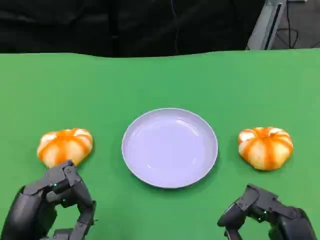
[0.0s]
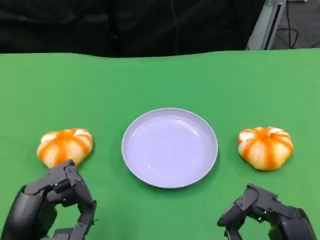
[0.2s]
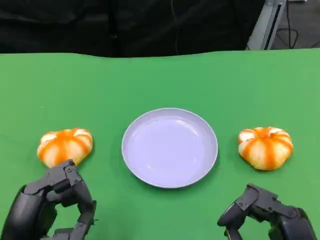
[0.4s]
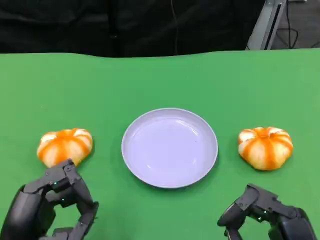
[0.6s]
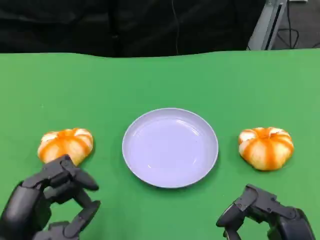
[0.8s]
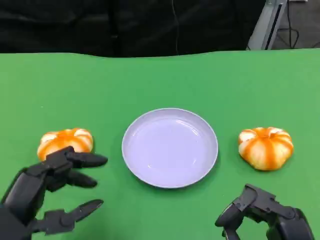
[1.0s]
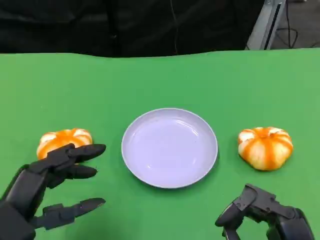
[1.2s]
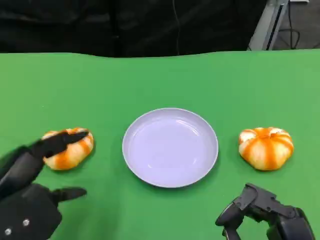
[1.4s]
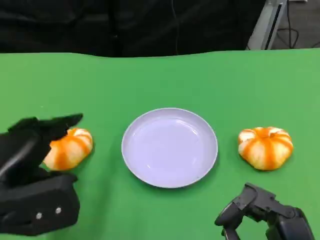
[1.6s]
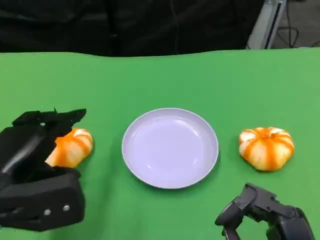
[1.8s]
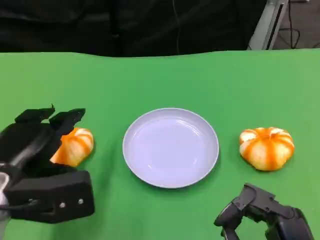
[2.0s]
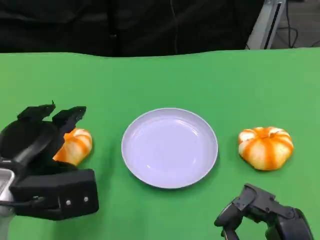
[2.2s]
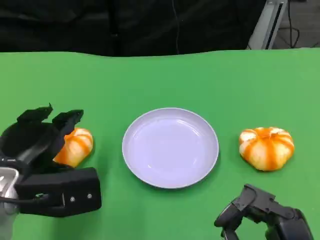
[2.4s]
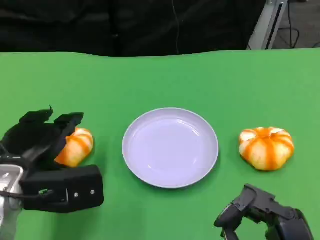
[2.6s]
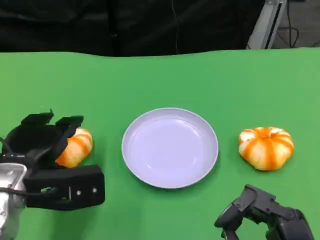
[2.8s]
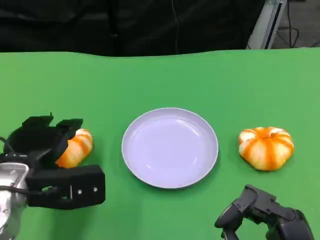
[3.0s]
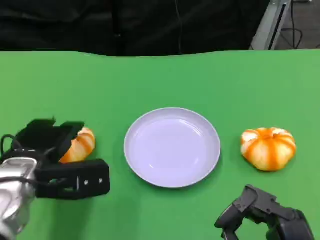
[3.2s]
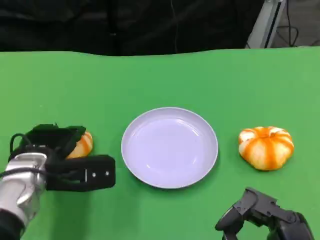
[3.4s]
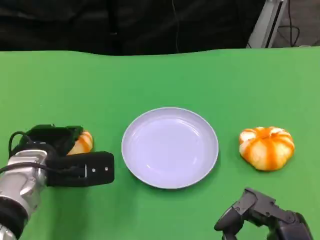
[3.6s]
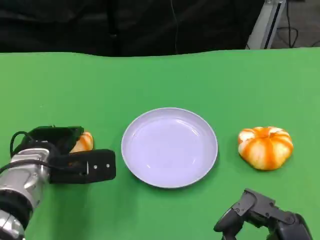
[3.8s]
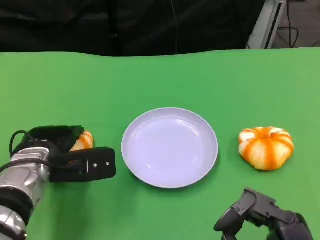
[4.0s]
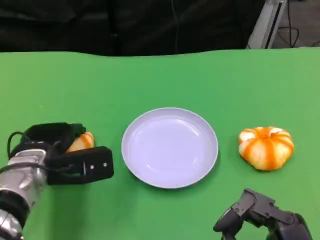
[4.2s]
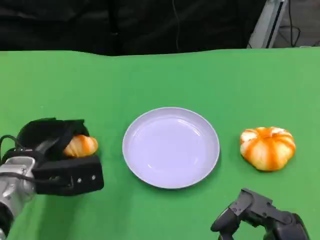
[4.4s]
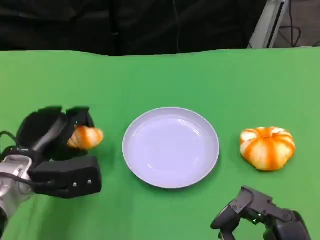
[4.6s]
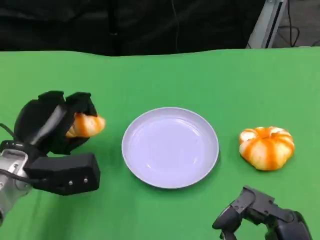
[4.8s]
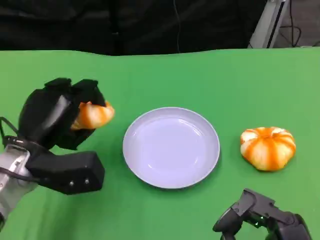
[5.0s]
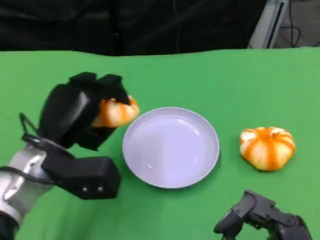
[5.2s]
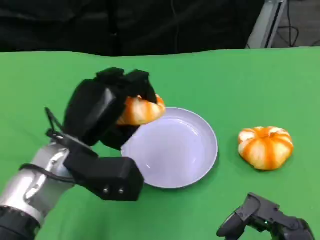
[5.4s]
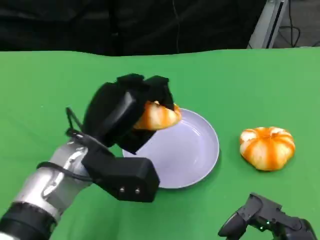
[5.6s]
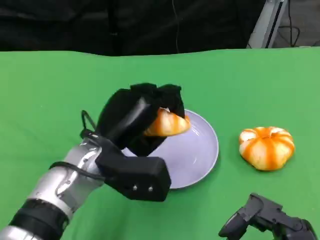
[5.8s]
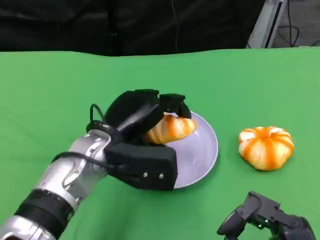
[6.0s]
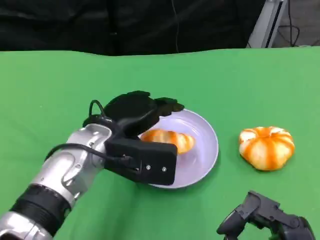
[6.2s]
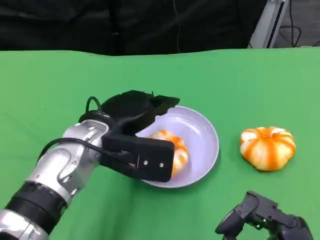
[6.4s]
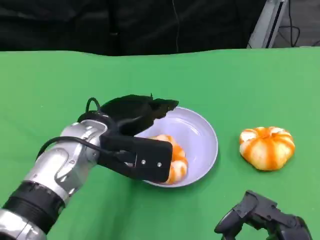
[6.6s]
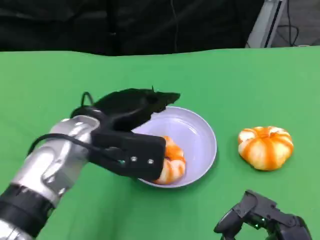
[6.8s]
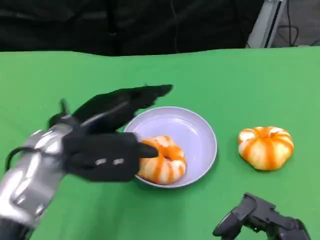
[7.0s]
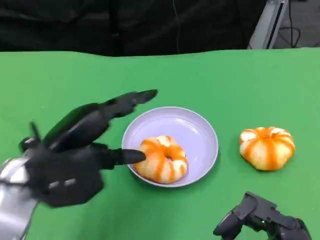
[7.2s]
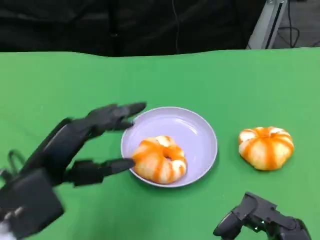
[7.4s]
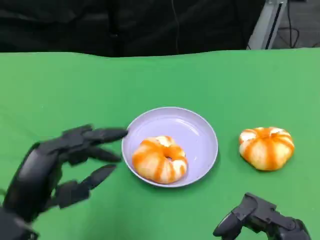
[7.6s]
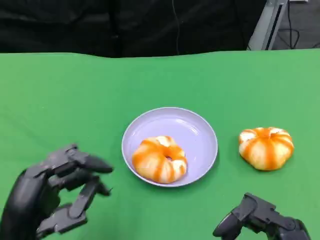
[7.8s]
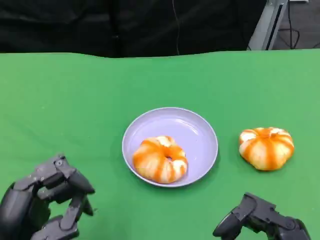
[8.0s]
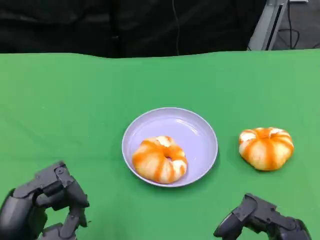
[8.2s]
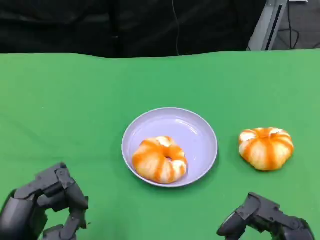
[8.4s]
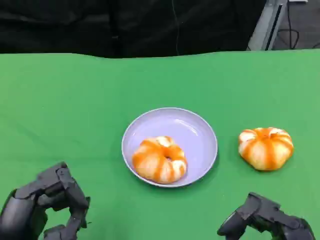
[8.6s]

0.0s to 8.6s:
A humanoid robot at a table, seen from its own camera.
Task of the whole recording: Grasp the bread from the table and place it into the plate.
0.0s to 1.4s: The left hand moves upward, roughly 5 cm.
1.4s to 2.8s: The left hand shifts about 5 cm forward.
2.8s to 4.4s: The left hand changes place by about 5 cm.
4.4s to 5.8s: The left hand shifts roughly 10 cm to the right and upward.
5.8s to 7.2s: The left hand travels to the left and backward by approximately 10 cm.
7.2s to 8.6s: The left hand moves backward and downward, about 10 cm.

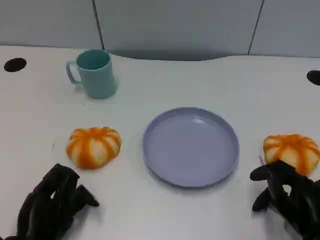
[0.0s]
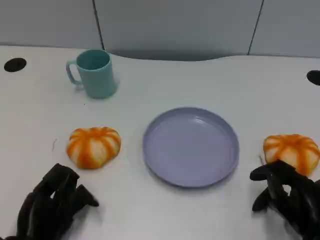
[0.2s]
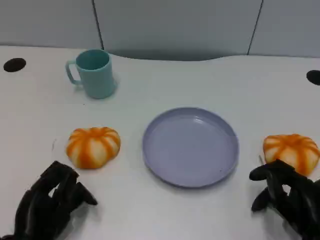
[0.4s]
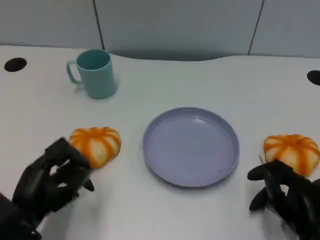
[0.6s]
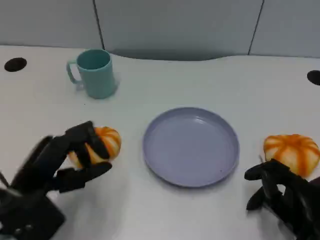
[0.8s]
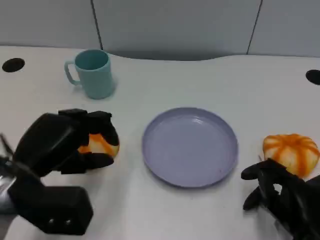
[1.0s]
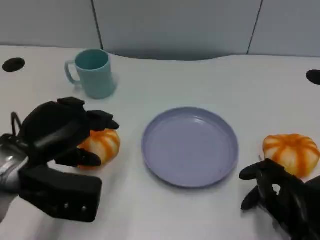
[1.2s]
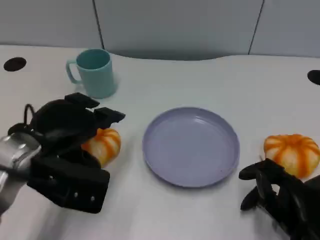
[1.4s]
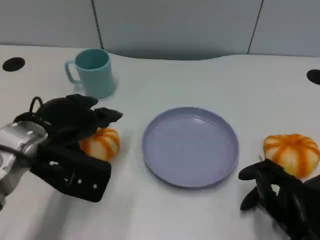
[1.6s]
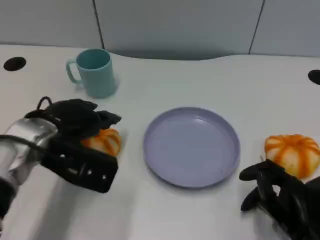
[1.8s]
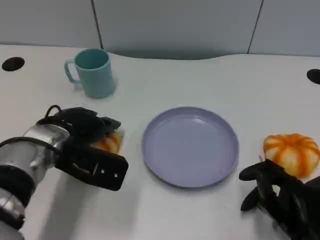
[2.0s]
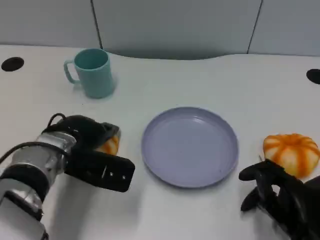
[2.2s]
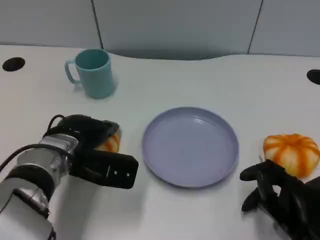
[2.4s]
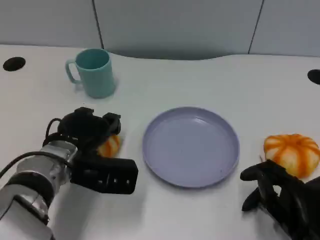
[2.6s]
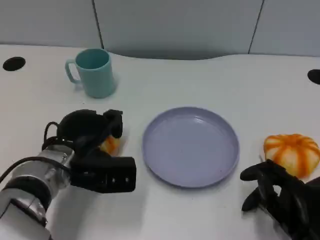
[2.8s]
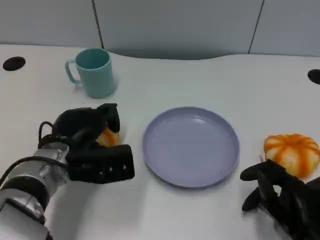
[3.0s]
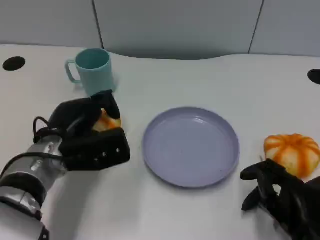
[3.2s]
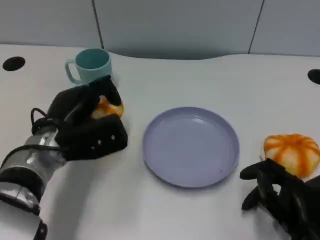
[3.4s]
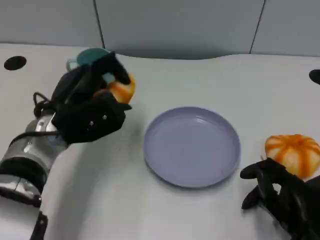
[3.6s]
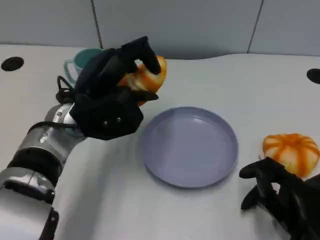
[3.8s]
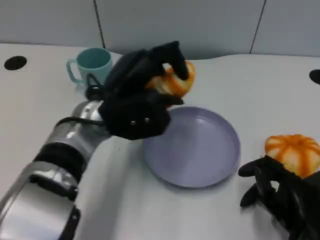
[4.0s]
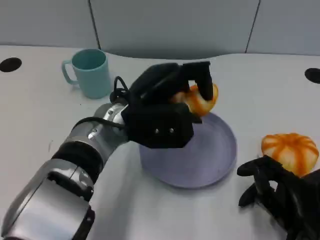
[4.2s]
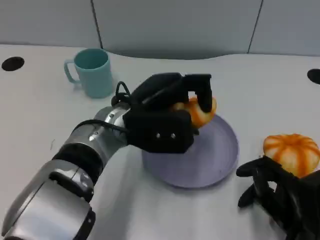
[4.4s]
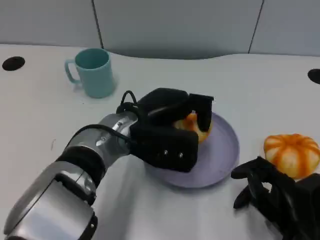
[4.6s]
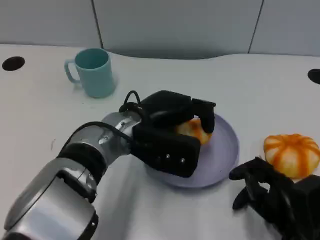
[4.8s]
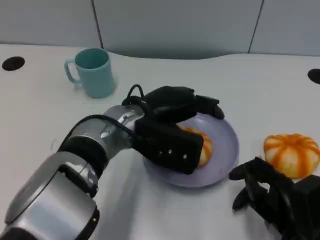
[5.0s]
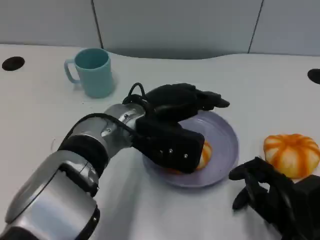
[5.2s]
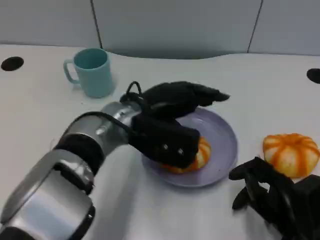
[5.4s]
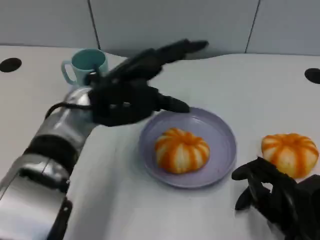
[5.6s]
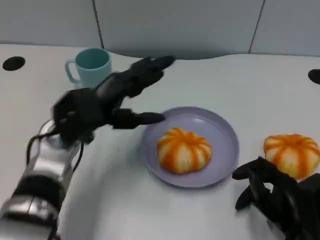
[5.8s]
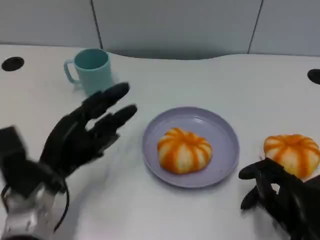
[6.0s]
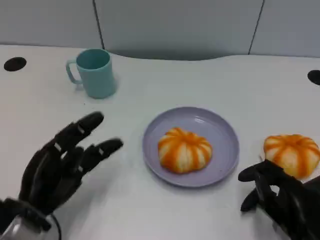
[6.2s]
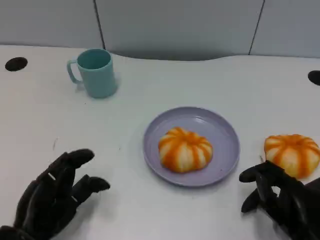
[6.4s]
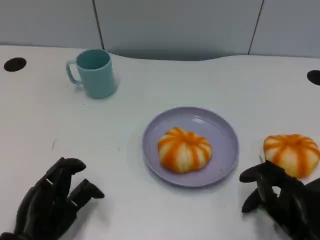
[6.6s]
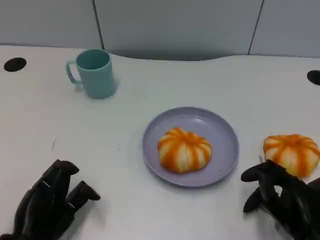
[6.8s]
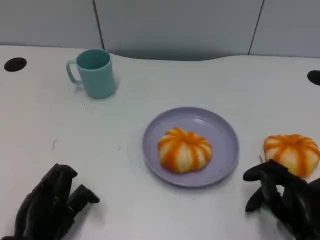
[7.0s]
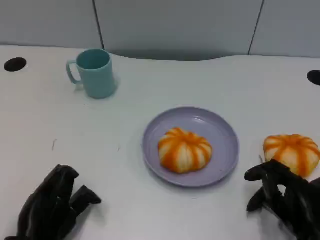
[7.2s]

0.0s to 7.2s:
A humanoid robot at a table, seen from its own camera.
Task of the whole recording: Grasp the bread from the table and place it into the plate.
0.0s to 1.4s: The left hand goes some 15 cm upward and forward.
1.4s to 2.8s: The left hand travels downward by approximately 5 cm.
2.8s to 4.4s: The left hand goes approximately 10 cm to the right and upward.
4.4s to 5.8s: The left hand moves to the left, roughly 10 cm.
5.8s to 7.2s: The left hand shifts approximately 15 cm backward, downward and to the left.

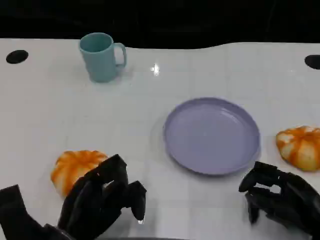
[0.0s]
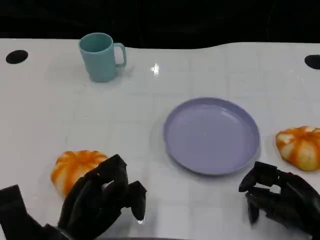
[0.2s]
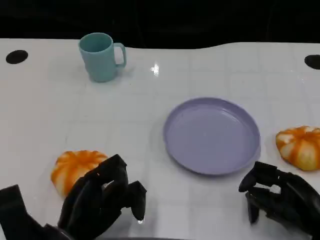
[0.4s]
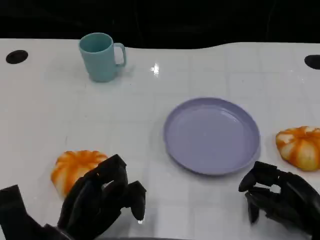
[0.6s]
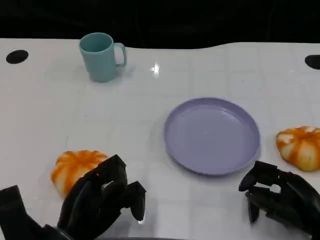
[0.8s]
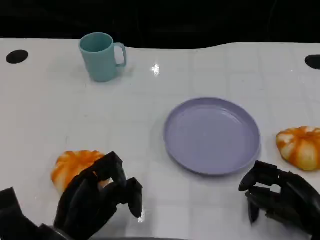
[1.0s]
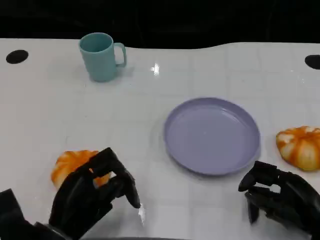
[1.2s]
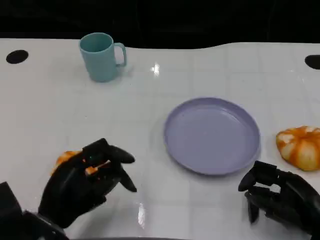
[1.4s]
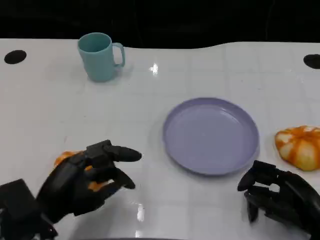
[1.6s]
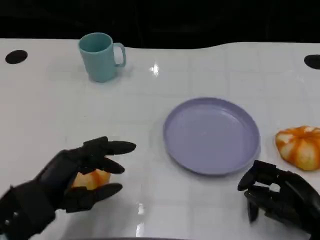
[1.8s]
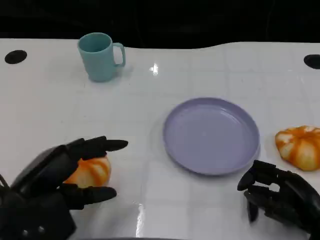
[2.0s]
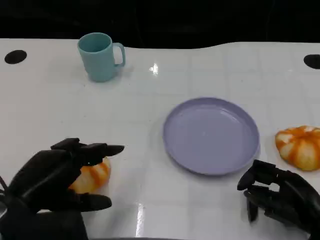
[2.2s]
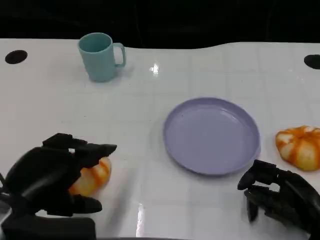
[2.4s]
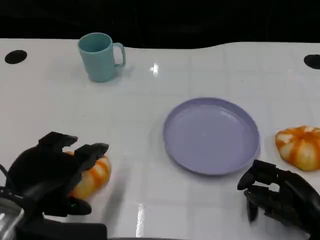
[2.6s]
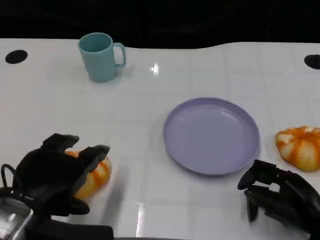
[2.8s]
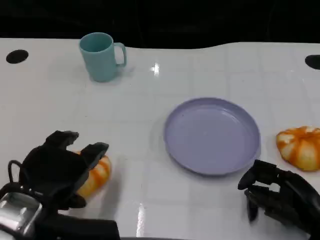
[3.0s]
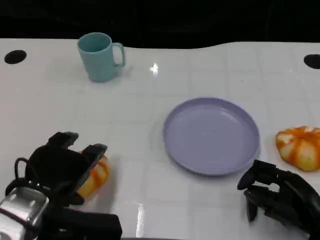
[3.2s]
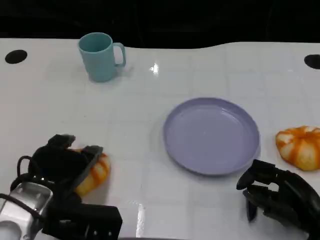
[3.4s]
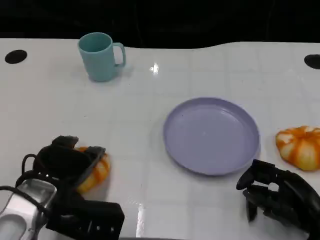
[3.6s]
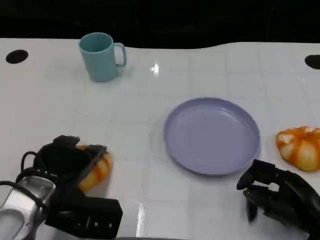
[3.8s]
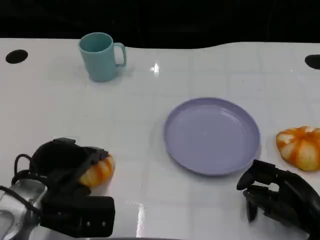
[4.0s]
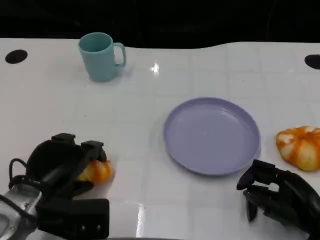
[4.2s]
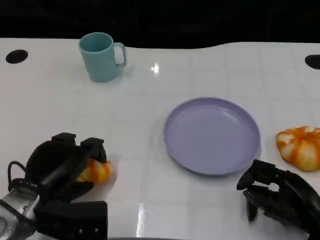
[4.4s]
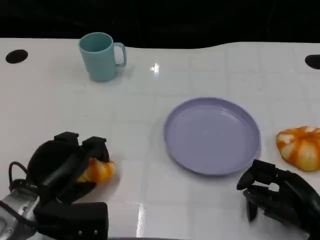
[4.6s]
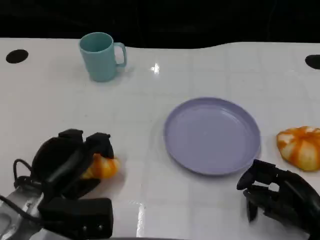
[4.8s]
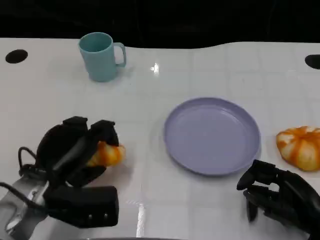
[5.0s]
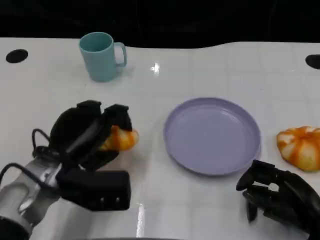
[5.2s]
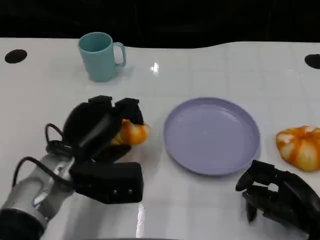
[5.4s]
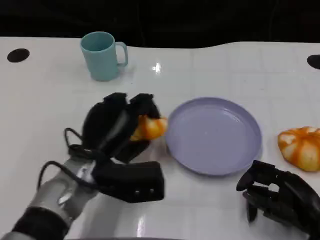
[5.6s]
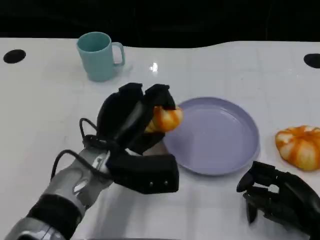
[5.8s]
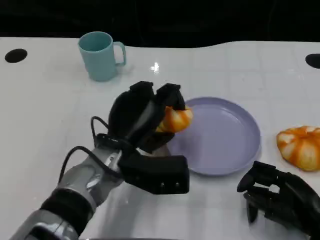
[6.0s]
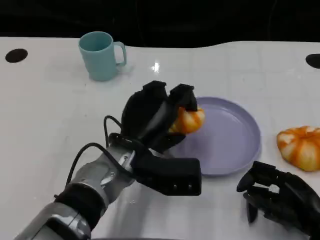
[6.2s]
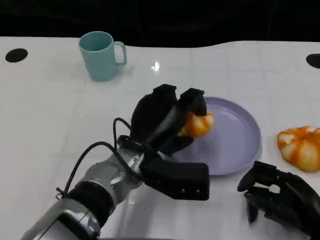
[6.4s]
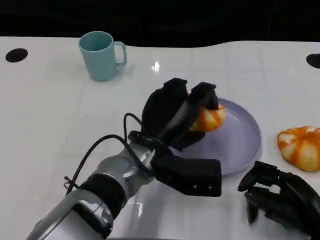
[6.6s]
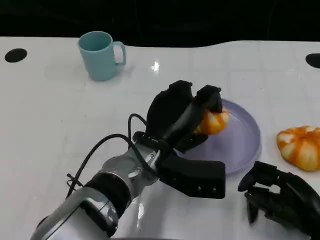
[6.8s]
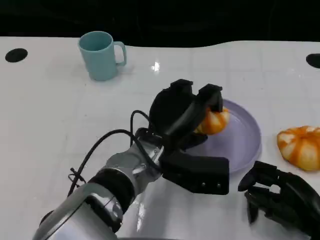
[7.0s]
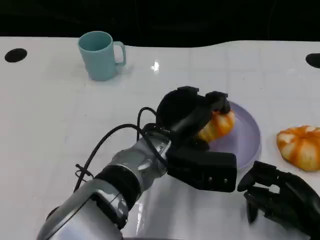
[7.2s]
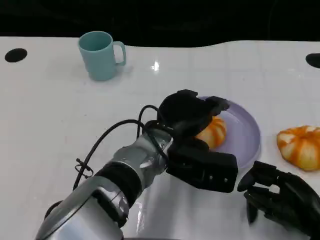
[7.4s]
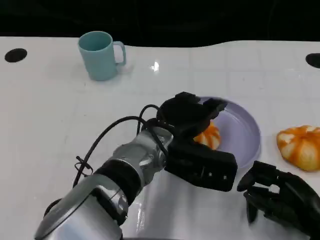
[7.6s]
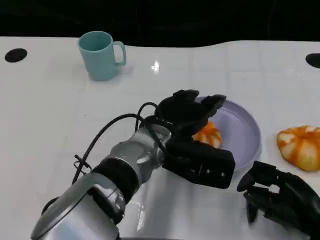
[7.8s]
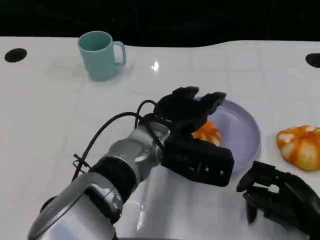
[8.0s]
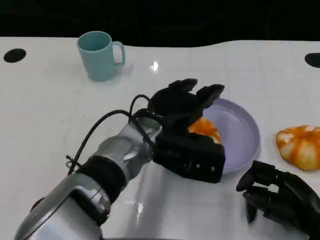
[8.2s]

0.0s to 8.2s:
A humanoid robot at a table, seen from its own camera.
Task of the whole recording: Grasp the bread from the table and place it into the plate.
0.0s to 1.6s: The left hand changes place by about 5 cm.
5.0s to 6.6s: The left hand goes roughly 15 cm to the right.
